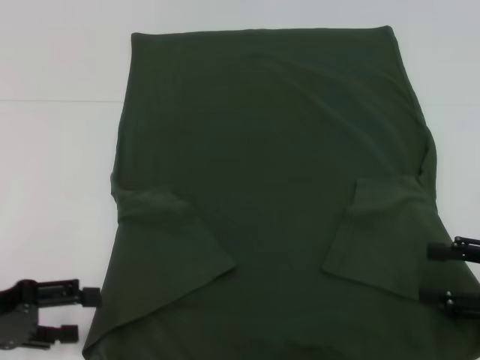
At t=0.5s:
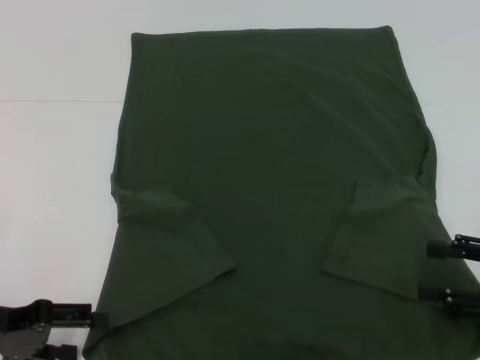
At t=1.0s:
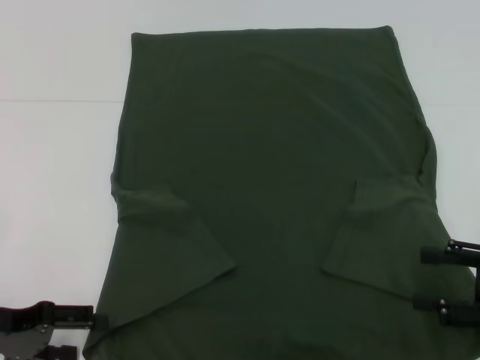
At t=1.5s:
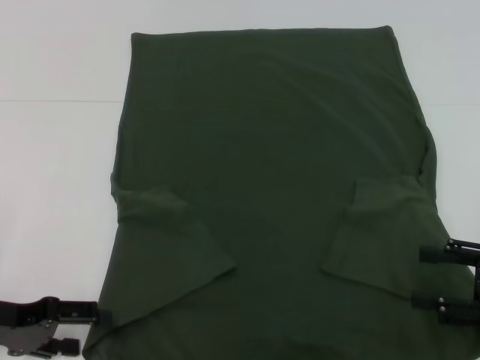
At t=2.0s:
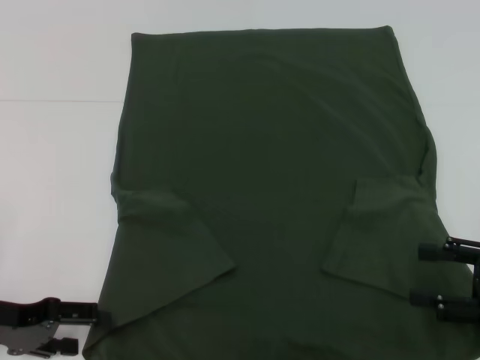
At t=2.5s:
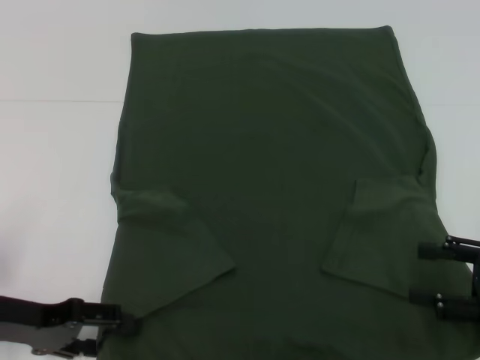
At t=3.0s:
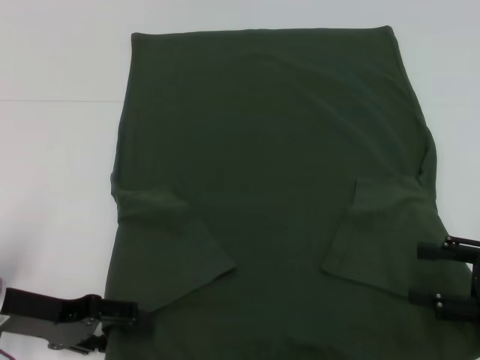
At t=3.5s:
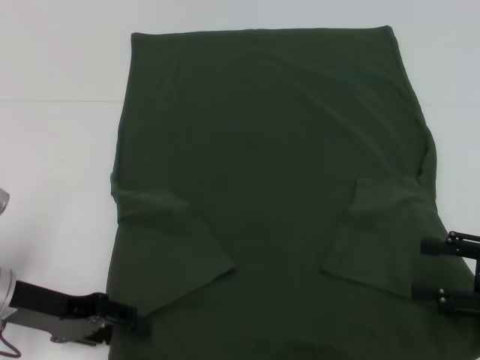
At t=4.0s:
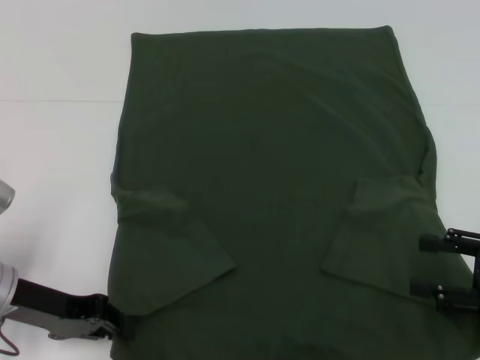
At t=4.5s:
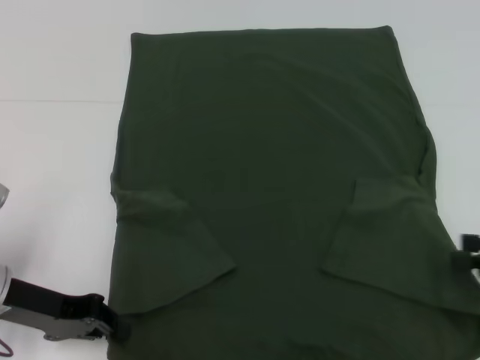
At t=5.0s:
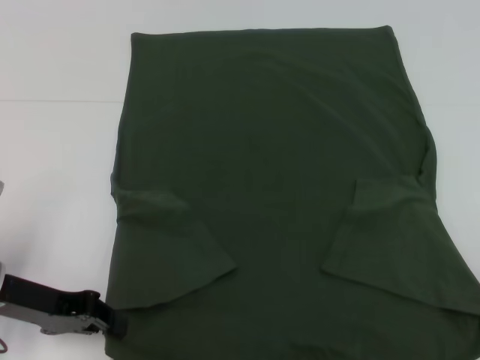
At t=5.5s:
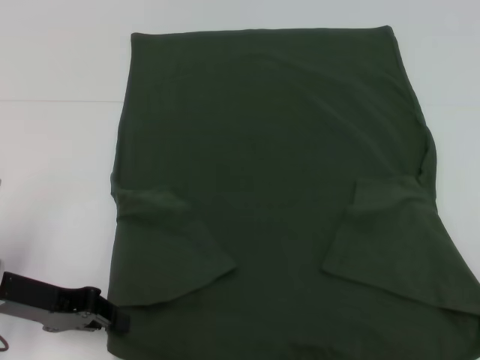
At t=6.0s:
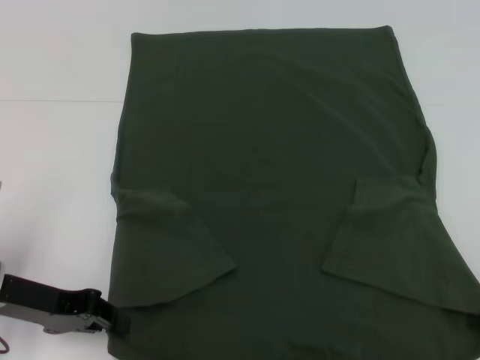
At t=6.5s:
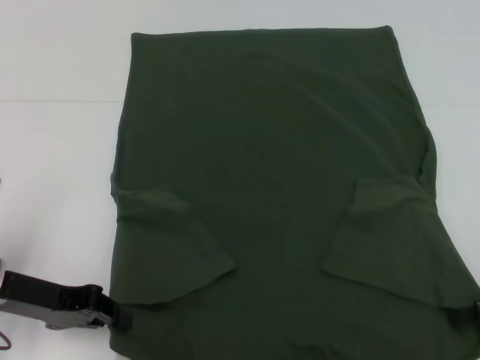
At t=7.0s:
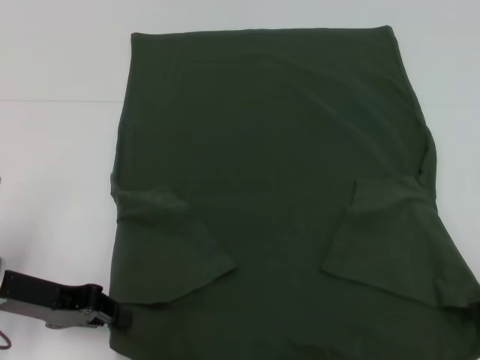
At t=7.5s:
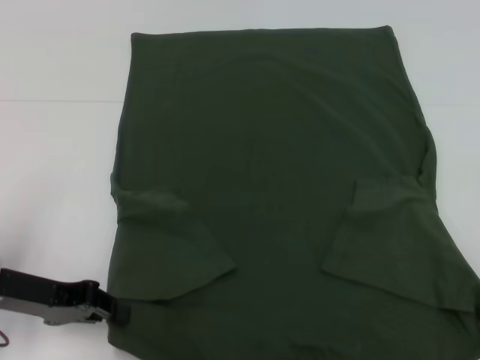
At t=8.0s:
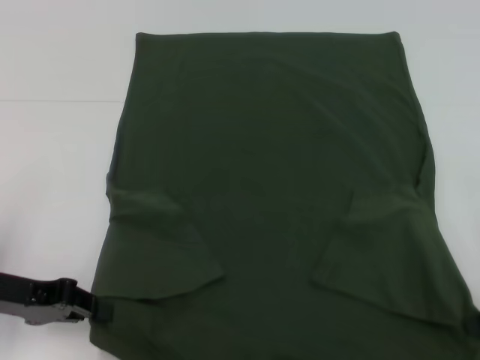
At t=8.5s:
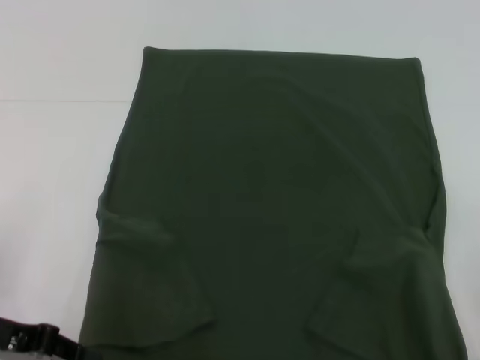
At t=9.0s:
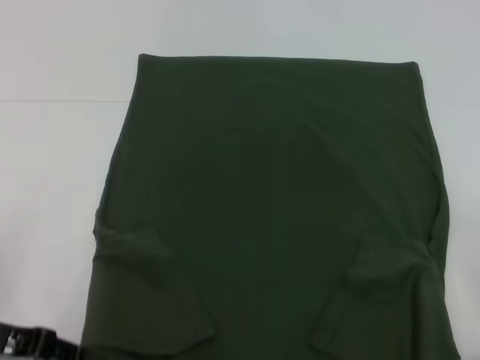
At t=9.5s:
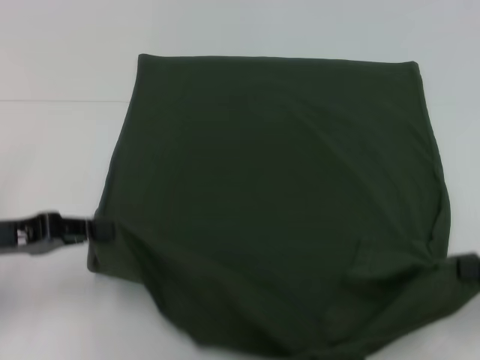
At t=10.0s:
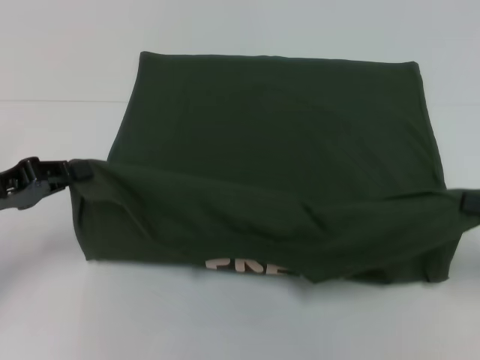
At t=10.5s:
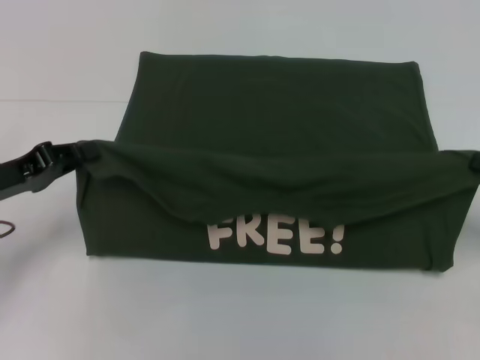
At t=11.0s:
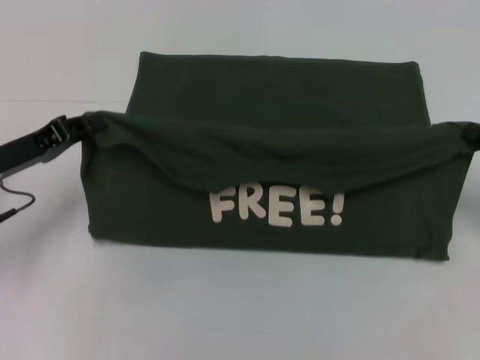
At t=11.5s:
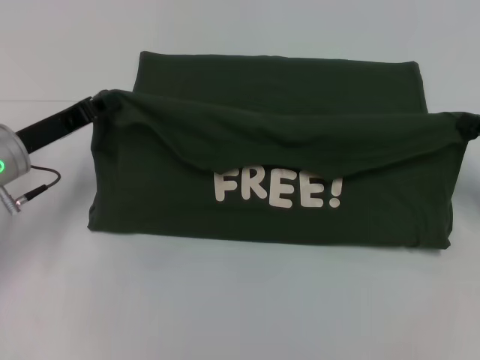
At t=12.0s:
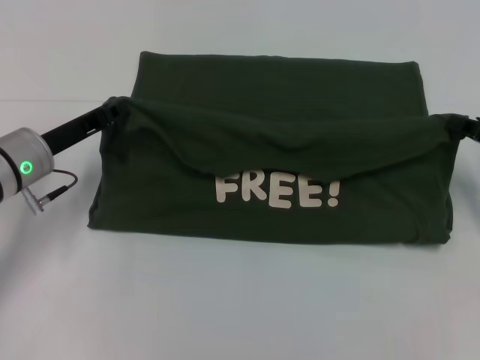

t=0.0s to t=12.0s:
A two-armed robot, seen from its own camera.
Step, t=0.0s to t=4.0s: Grab the bottom left corner with your left hand.
Step, t=4.5s to t=7.0s: Grab the bottom right corner with your right hand.
t=0.0s to t=2.0s: There are only small adjustments of the grippers.
t=2.0s to t=4.0s: The left gripper changes place by about 5 cm, and closes up.
t=4.0s to t=6.0s: The right gripper heads to the right, covering some 5 cm.
t=6.0s to t=8.0s: The right gripper closes up.
t=10.0s to t=12.0s: The right gripper goes about 10 cm forward. Meanwhile the left gripper goes about 10 cm forward and to the right.

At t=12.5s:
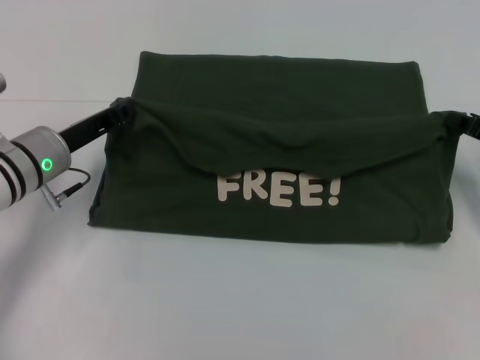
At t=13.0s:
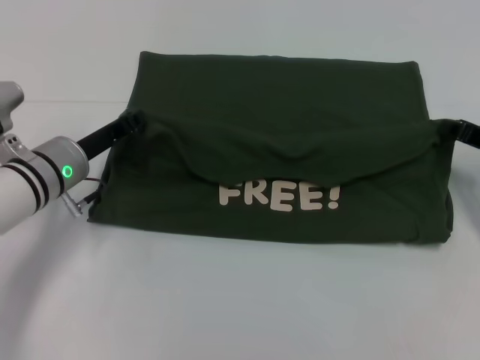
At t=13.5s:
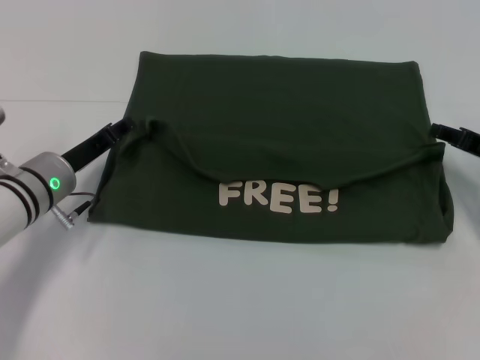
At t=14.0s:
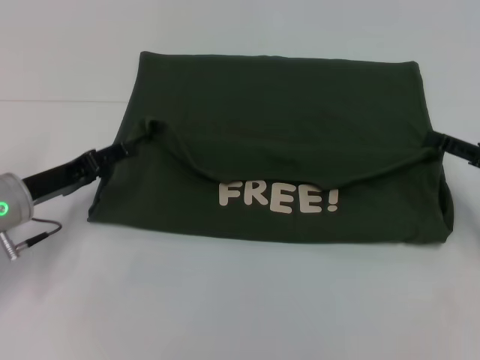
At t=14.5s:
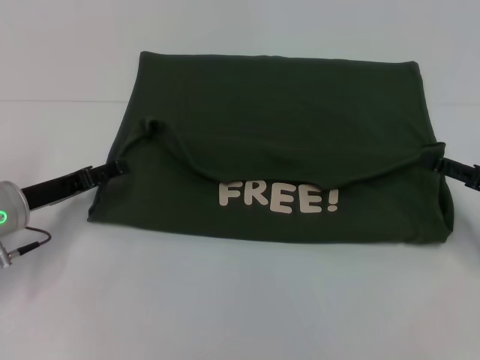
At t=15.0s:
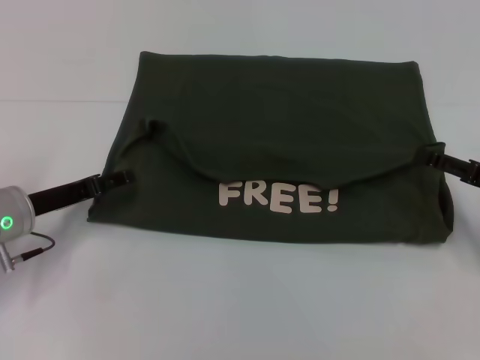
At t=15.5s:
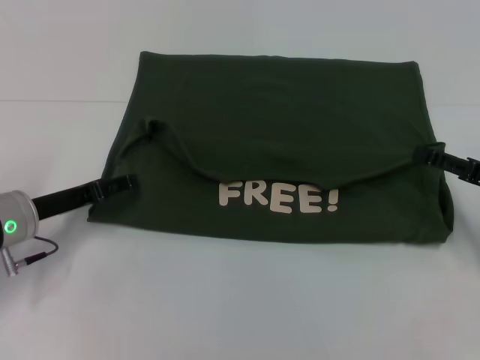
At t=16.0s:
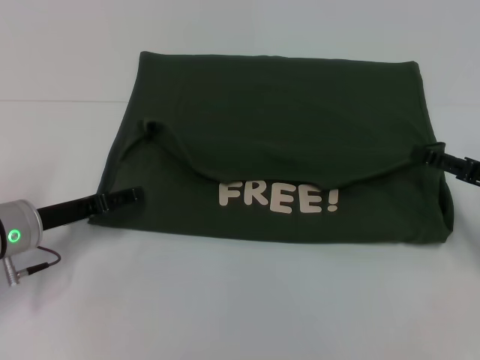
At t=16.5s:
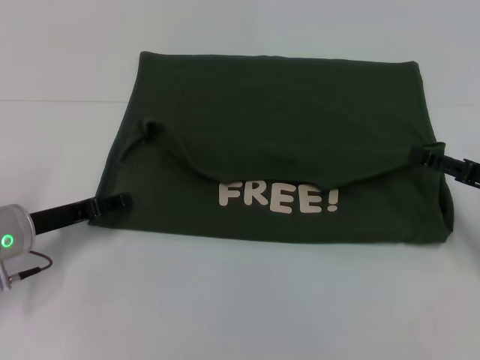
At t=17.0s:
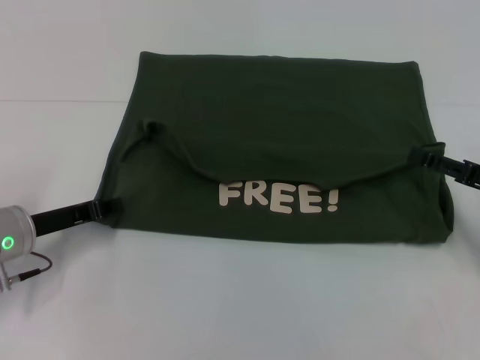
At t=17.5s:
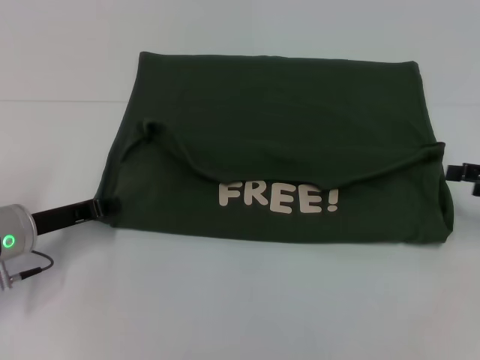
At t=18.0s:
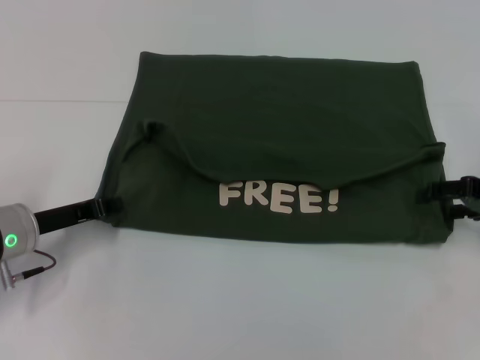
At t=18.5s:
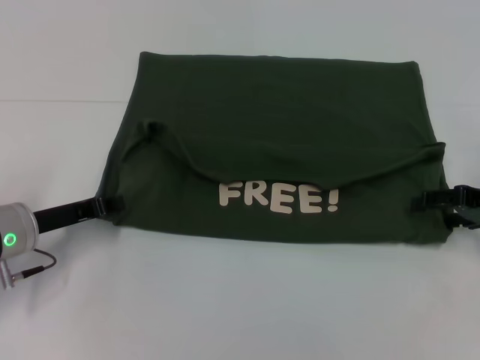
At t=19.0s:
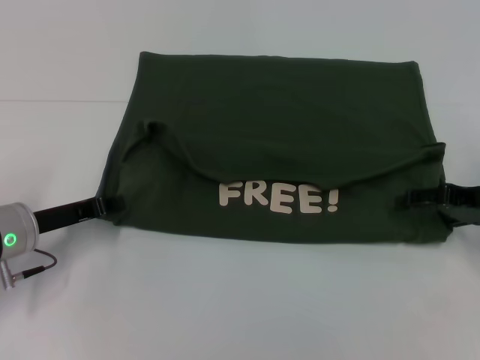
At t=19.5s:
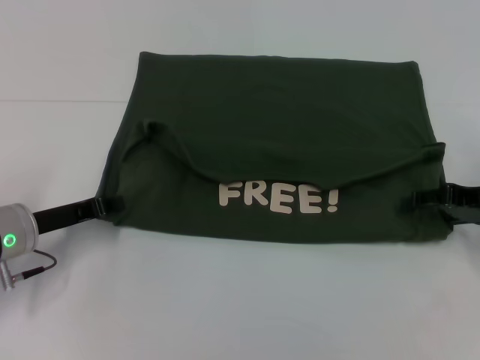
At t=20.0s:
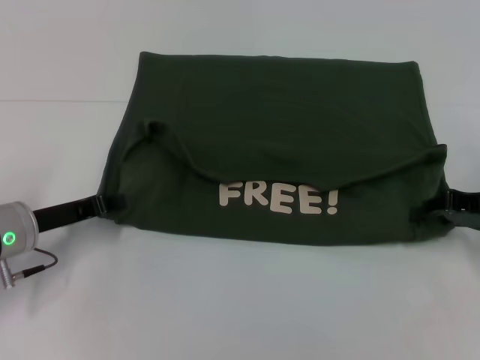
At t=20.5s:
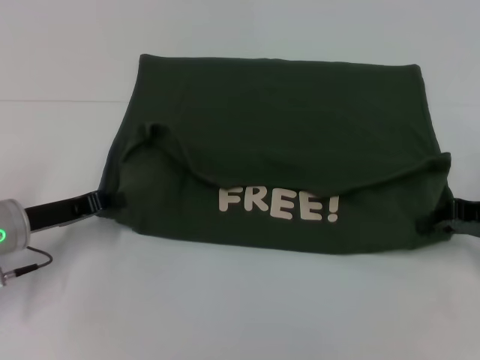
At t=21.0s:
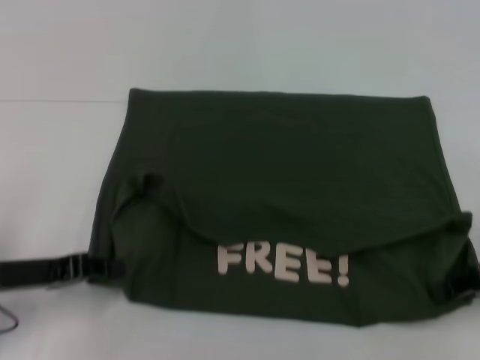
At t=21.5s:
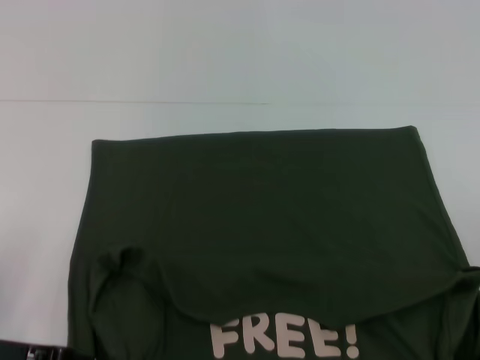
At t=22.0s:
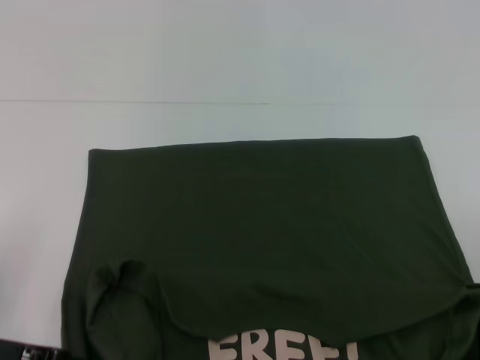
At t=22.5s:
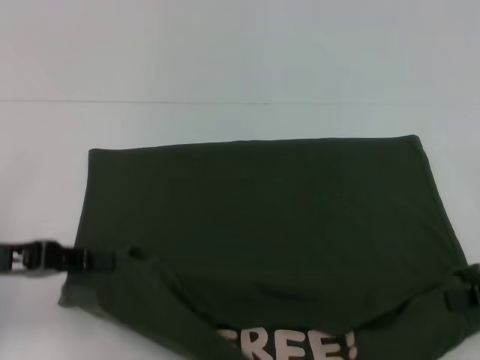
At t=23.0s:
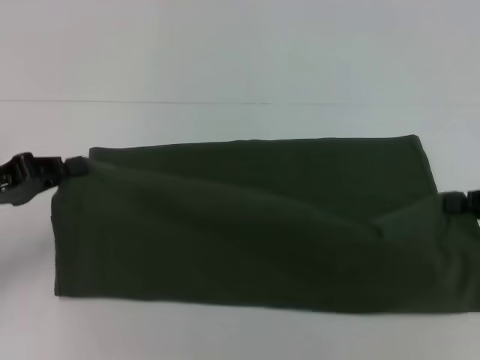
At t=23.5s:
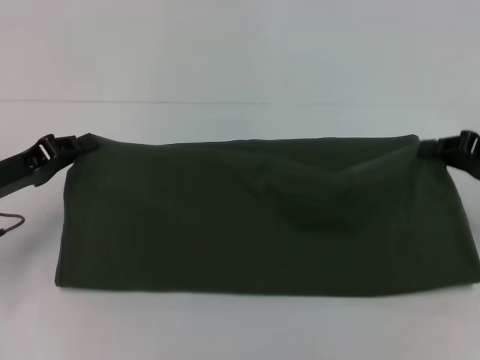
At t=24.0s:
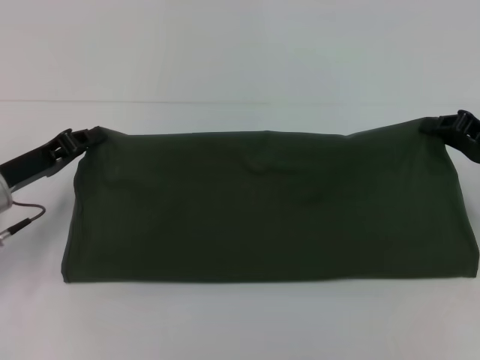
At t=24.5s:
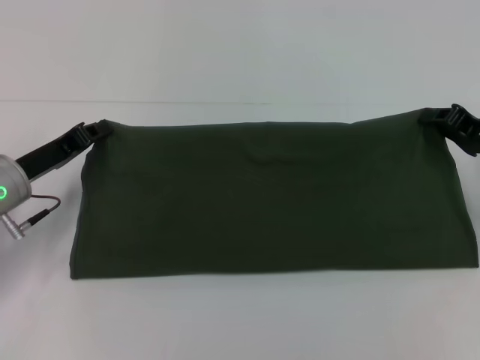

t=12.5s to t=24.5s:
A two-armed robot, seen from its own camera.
Step, t=14.0s to t=21.5s: Pull the clothes with your left hand.
Step, t=14.0s to t=21.5s: Pull the clothes with your right hand.
t=12.5s to t=14.5s: The left gripper shifts by about 5 cm, and opens its fingers. The right gripper shifts roughly 5 cm backward, and opens.
t=14.5s to t=16.5s: The grippers make only small movements.
t=16.5s to t=18.5s: The left gripper closes up.
t=18.5s to t=20.5s: The right gripper closes its fingers.
t=20.5s to t=22.5s: The right gripper travels backward by roughly 5 cm. Meanwhile the left gripper shifts approximately 10 cm upward and backward.
t=22.5s to t=24.5s: The right gripper heads forward, covering about 10 cm, while the left gripper shifts about 10 cm forward and downward.

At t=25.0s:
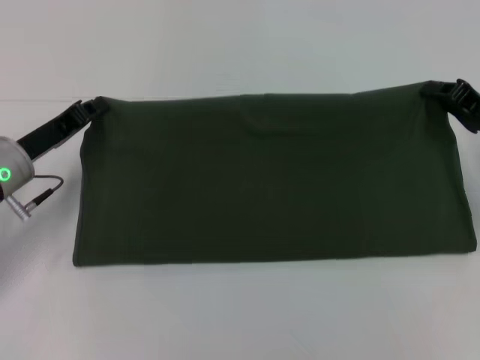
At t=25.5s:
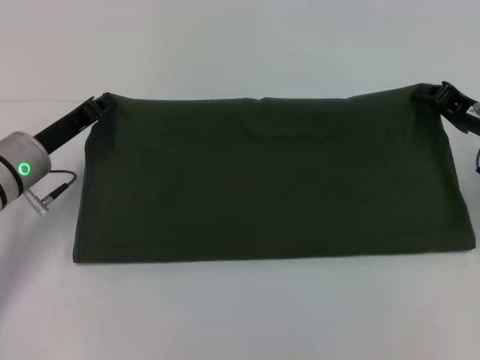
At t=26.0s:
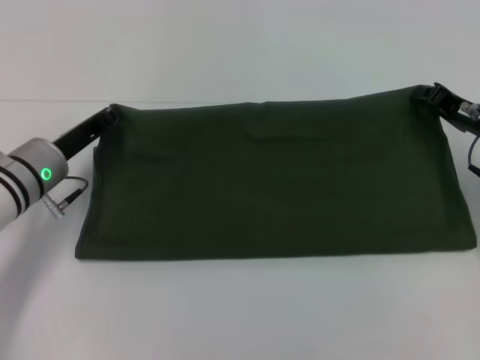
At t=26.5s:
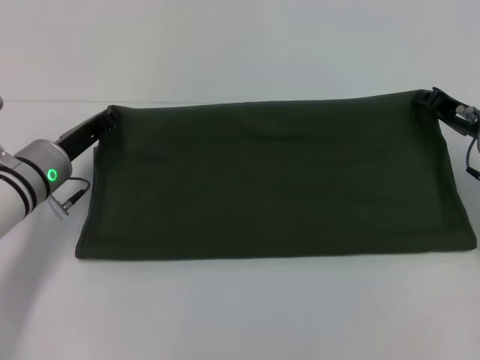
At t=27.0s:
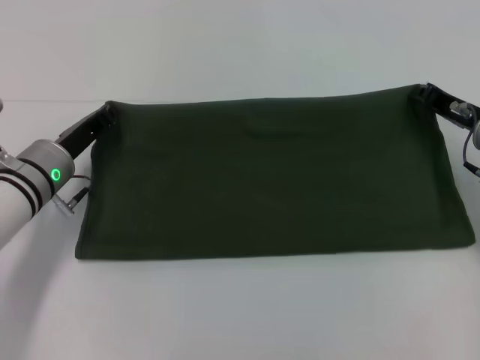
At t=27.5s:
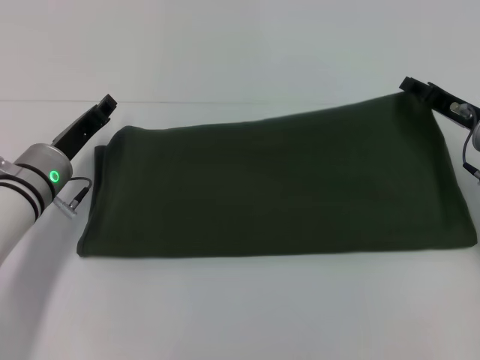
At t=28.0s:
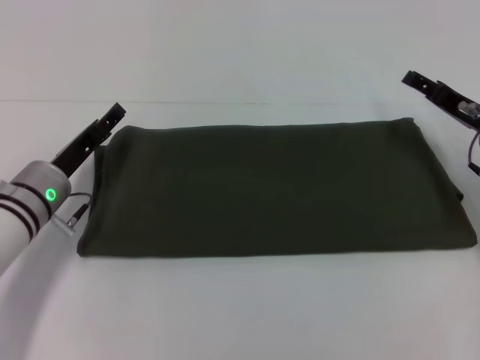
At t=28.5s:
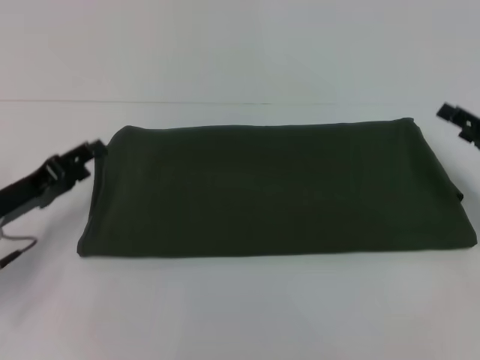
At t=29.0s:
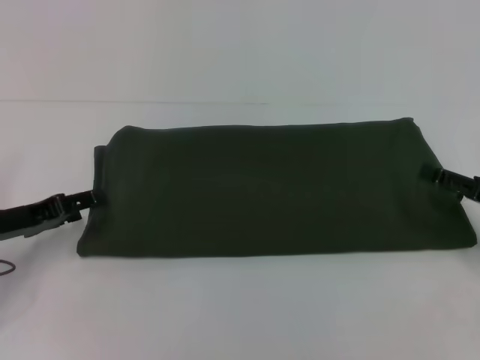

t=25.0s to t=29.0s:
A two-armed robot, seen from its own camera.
Step, t=25.0s to t=27.5s: Fold the clothes with your right hand.
t=25.0s to t=27.0s: The left gripper shifts by about 5 cm.
t=27.0s to t=29.0s: The right gripper moves backward and to the right, some 10 cm, and opens. The left gripper moves to the left and backward, approximately 10 cm, and opens its fingers.
